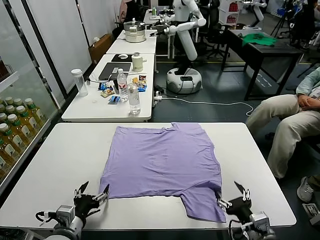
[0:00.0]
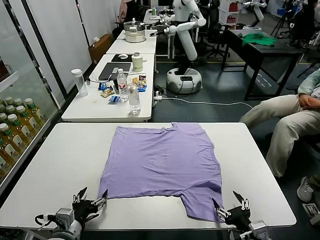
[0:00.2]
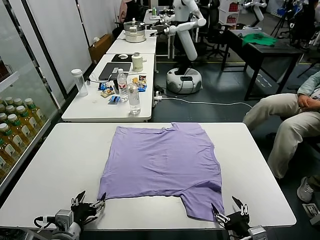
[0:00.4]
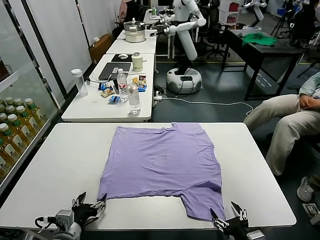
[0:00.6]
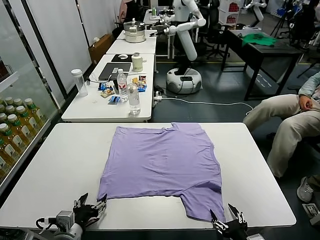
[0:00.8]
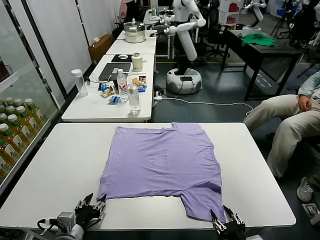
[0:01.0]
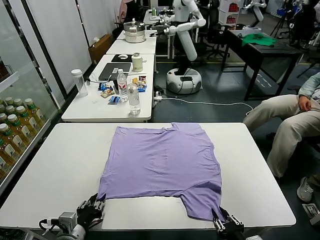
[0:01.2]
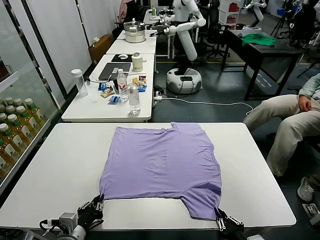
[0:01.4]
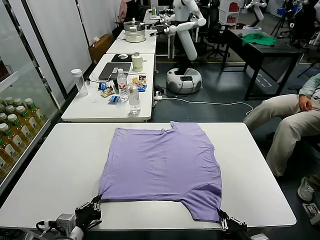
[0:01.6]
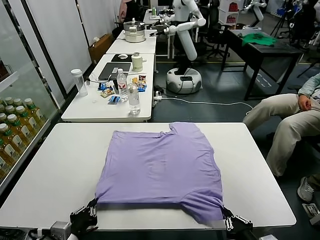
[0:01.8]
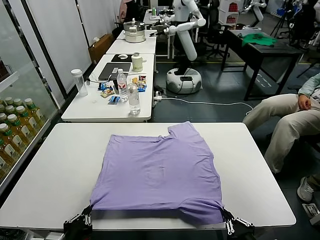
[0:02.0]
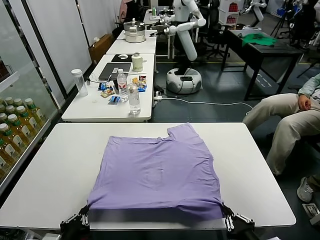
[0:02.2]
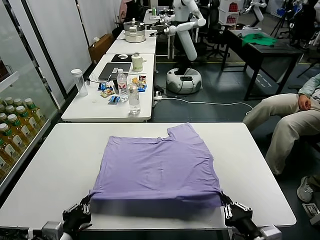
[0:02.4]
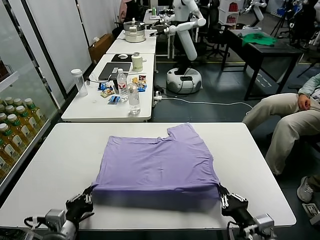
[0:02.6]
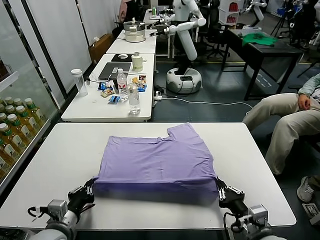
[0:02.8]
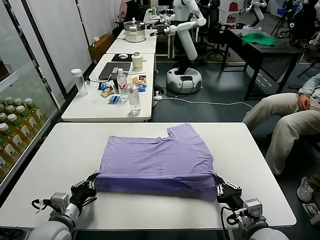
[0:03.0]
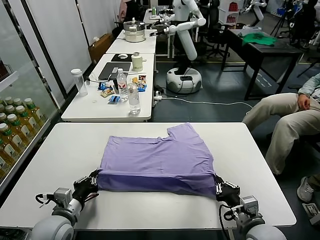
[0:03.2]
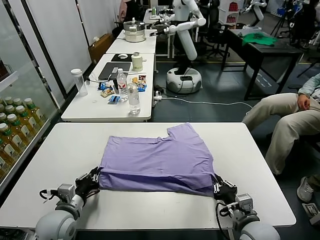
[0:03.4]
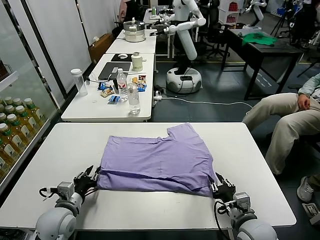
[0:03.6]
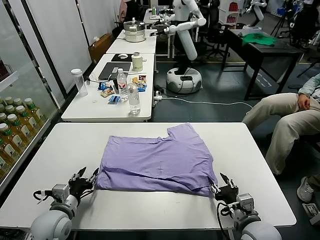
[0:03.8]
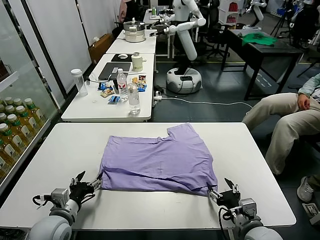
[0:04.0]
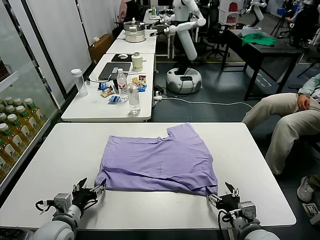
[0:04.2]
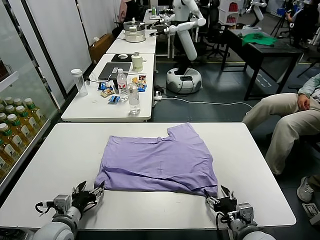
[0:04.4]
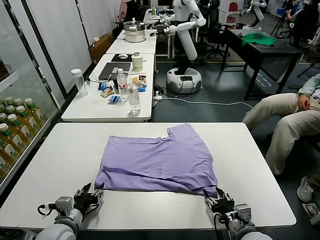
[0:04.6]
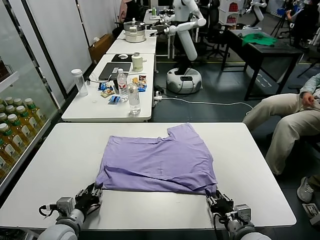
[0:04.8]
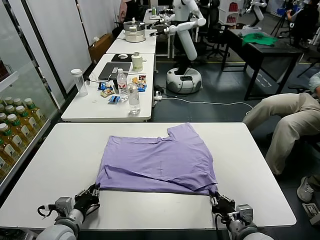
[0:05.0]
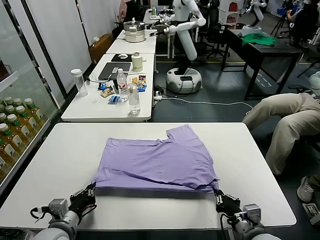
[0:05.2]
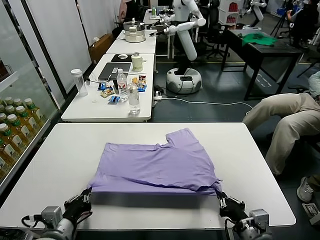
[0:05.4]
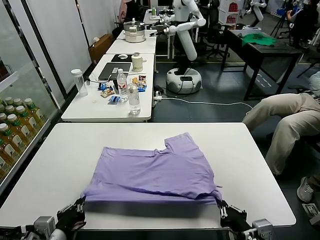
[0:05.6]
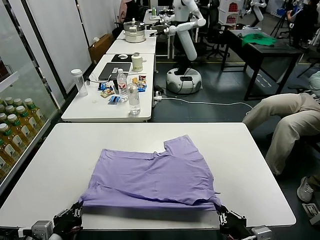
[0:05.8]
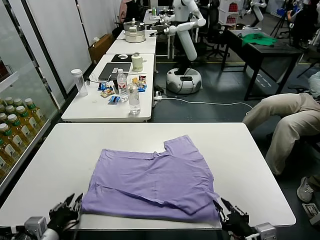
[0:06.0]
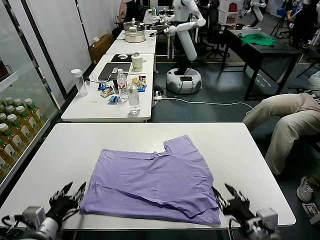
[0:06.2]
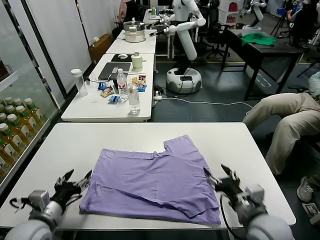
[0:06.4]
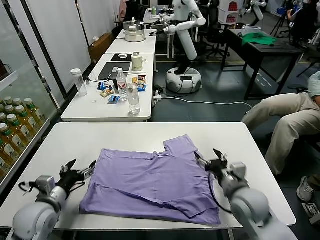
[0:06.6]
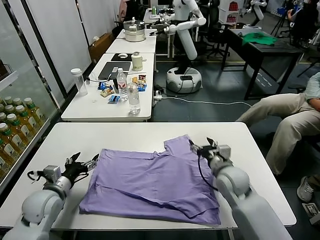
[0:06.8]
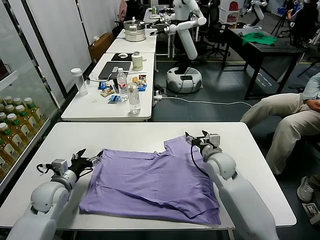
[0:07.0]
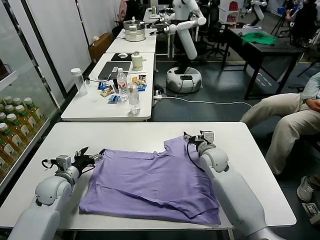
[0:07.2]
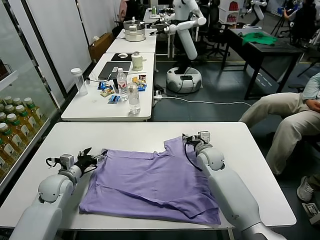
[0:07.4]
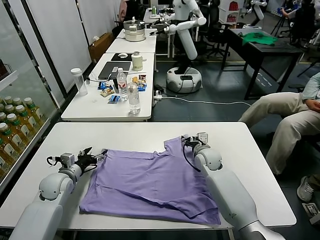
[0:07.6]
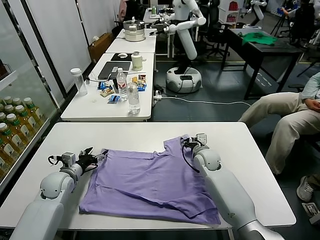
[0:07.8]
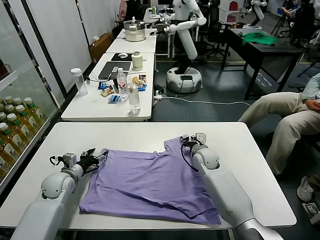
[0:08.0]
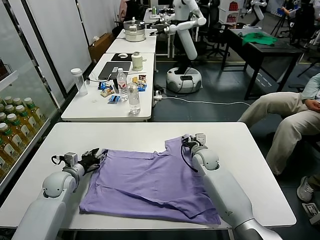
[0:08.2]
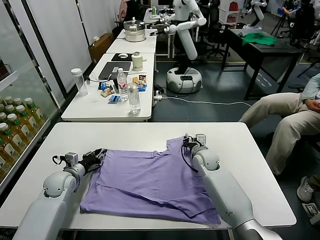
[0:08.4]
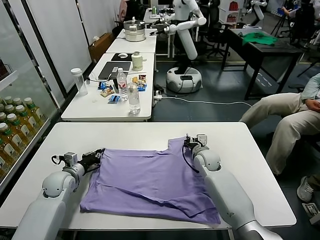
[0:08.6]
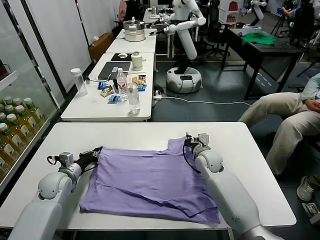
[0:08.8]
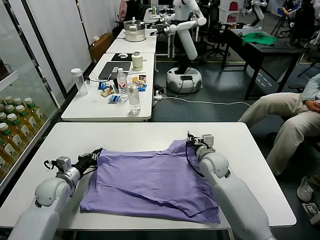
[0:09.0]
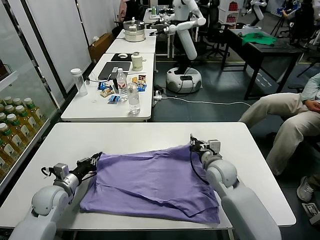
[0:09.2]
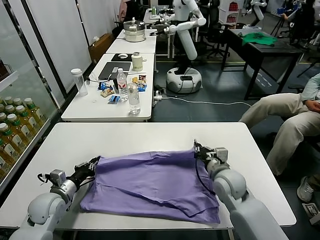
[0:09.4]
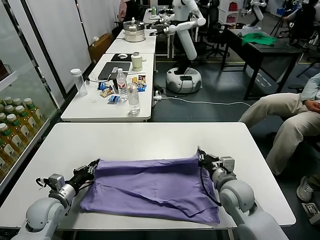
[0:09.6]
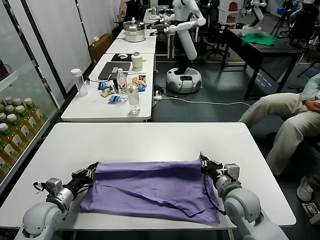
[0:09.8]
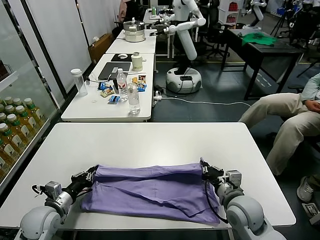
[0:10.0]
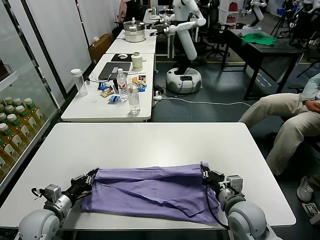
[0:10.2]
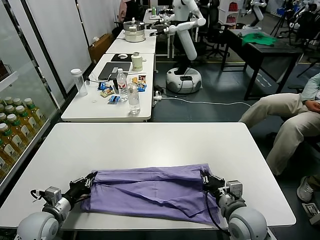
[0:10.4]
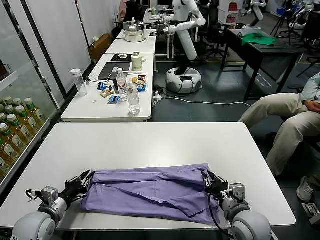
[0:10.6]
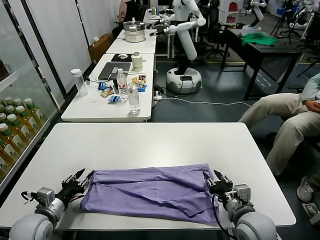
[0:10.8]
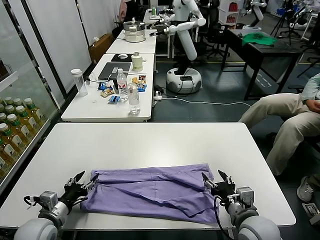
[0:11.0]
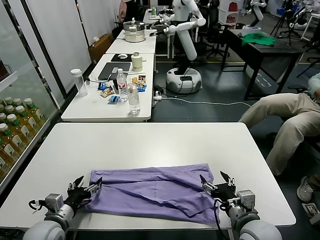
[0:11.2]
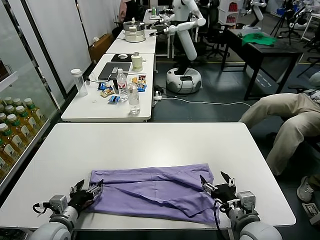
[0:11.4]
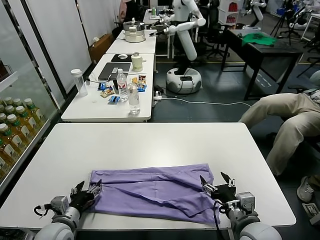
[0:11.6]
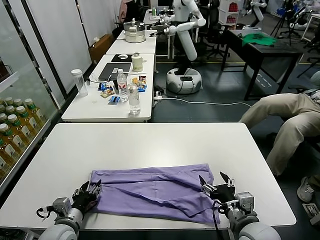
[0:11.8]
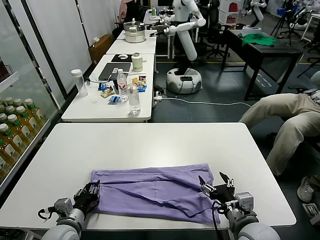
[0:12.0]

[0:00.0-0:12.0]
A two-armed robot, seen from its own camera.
Task of the whole recording: fold and organize the clothes.
Step, 0:00.0 to 0:01.8: use both grippers simultaneously to clamp the lower edge of the clothing fabric.
Step, 0:02.0 to 0:03.6: use both grippers to drag the lower edge of the fabric forward and fold it over the upper edge.
Step, 0:03.8 to 0:06.2: Drag the clothes downward with both gripper.
Step, 0:06.4 to 0:08.6: use both grippers simultaneously to clamp the upper edge of the clothing fabric.
Step, 0:08.8 to 0:10.8: use both grippers to drag the upper edge of the fabric backward and fold it over the lower edge.
0:01.6 to 0:03.0: The right gripper shifts some 10 cm forward. The left gripper shifts approximately 5 cm forward.
0:03.0 to 0:04.4: The left gripper opens up; the right gripper opens.
0:04.4 to 0:06.0: The right gripper travels upward and backward by approximately 10 cm, and closes and opens again; the left gripper moves backward, some 10 cm, and closes.
0:06.0 to 0:07.6: The grippers both shift forward by about 30 cm. The left gripper opens; the right gripper opens its fingers.
0:07.6 to 0:09.0: The left gripper closes, while the right gripper moves backward, approximately 5 cm, and closes up.
0:09.0 to 0:10.4: The left gripper moves backward, approximately 10 cm. The right gripper travels backward by about 20 cm.
0:10.4 to 0:12.0: The left gripper is displaced to the right by about 10 cm, and opens. Meanwhile the right gripper changes place by some 5 cm, and opens up.

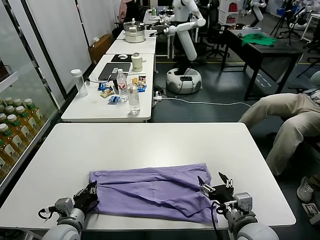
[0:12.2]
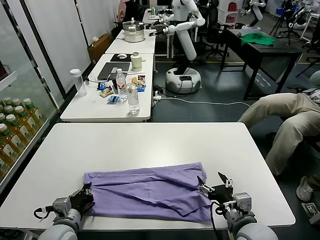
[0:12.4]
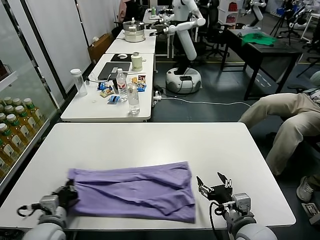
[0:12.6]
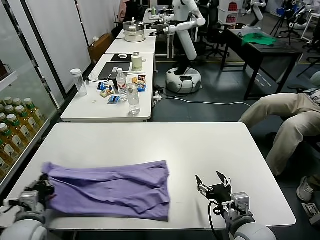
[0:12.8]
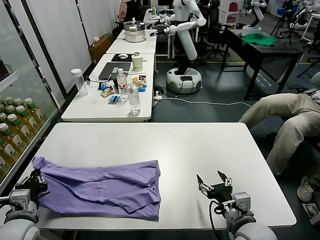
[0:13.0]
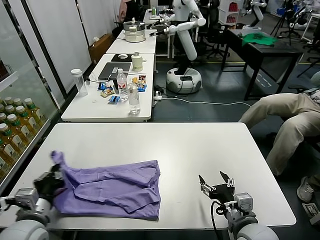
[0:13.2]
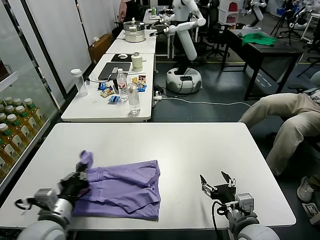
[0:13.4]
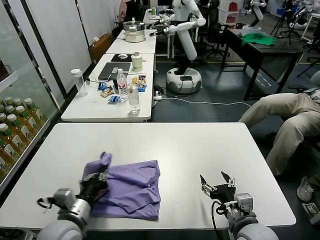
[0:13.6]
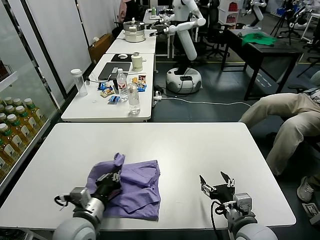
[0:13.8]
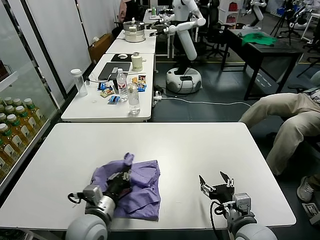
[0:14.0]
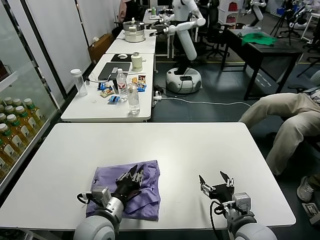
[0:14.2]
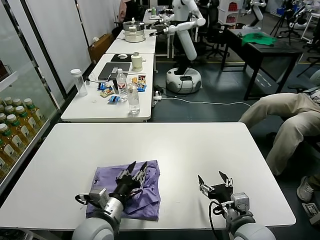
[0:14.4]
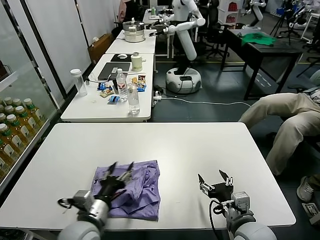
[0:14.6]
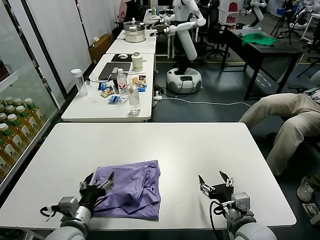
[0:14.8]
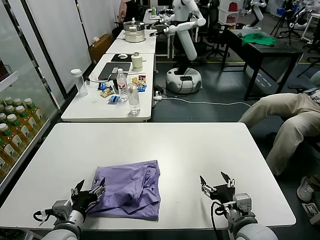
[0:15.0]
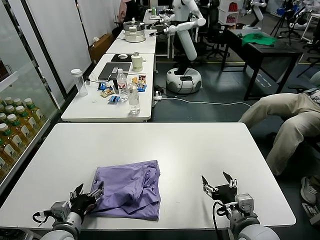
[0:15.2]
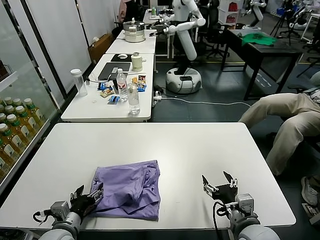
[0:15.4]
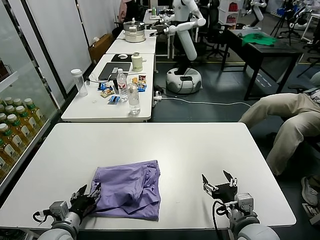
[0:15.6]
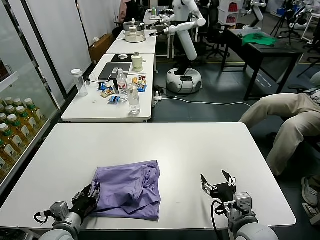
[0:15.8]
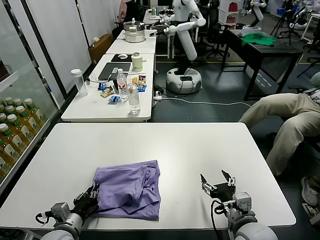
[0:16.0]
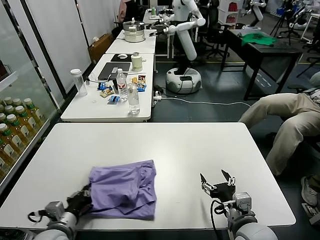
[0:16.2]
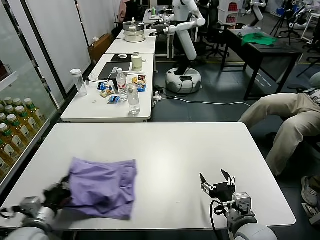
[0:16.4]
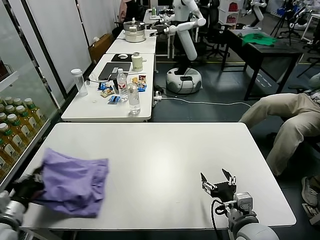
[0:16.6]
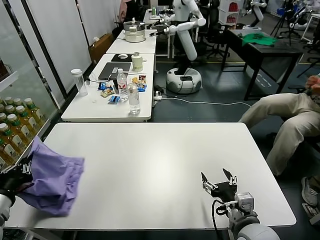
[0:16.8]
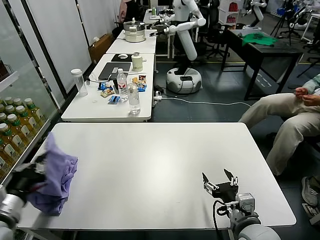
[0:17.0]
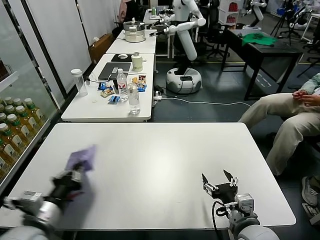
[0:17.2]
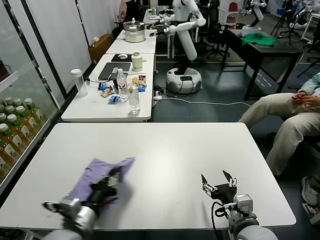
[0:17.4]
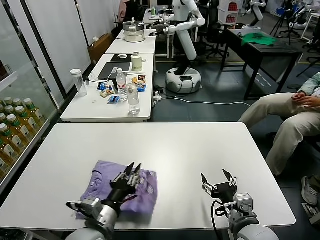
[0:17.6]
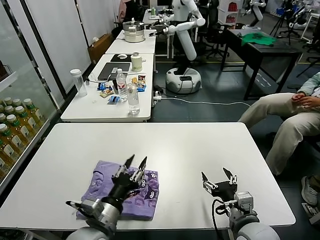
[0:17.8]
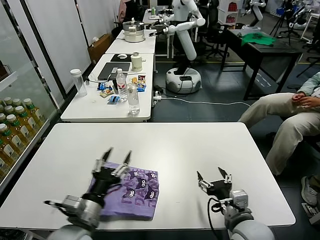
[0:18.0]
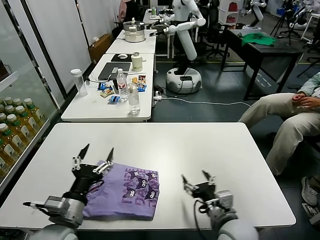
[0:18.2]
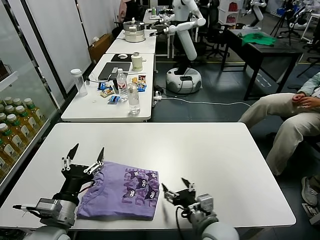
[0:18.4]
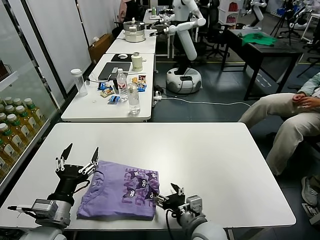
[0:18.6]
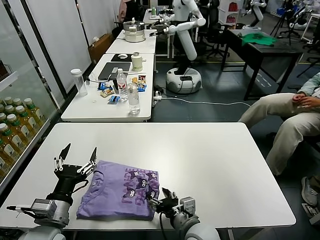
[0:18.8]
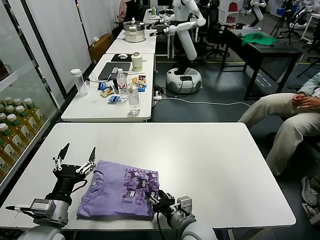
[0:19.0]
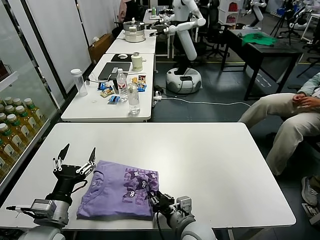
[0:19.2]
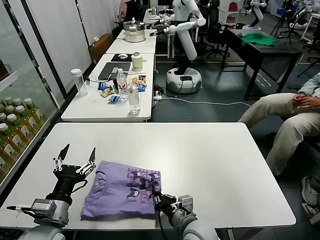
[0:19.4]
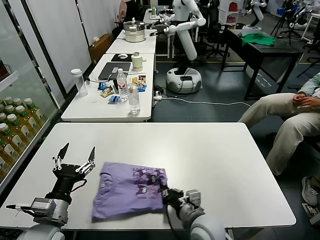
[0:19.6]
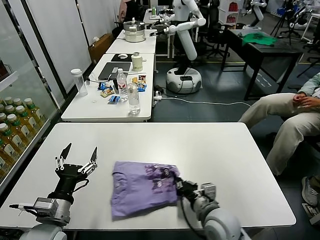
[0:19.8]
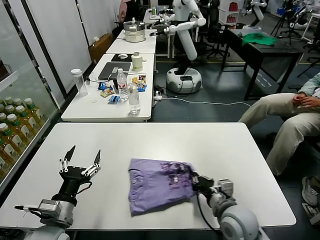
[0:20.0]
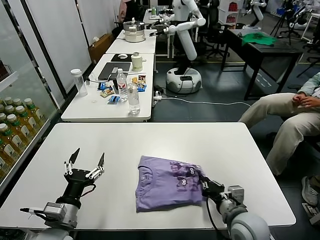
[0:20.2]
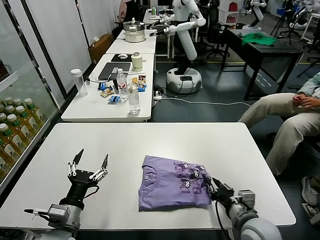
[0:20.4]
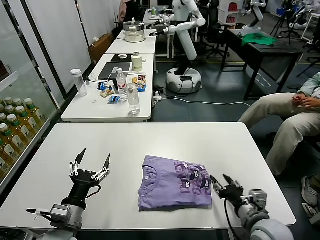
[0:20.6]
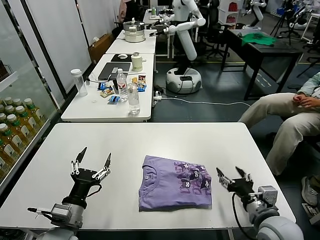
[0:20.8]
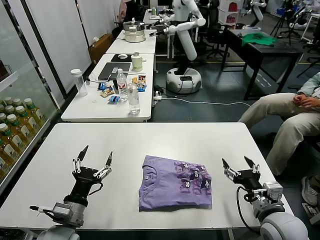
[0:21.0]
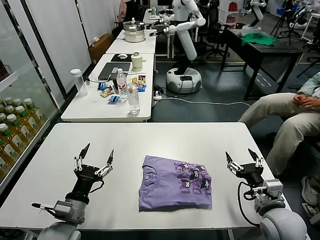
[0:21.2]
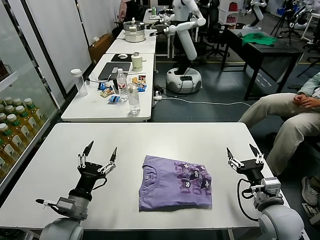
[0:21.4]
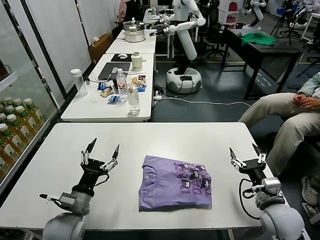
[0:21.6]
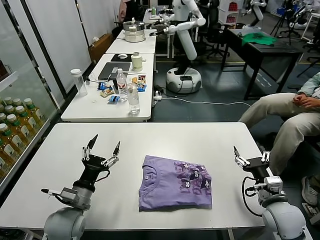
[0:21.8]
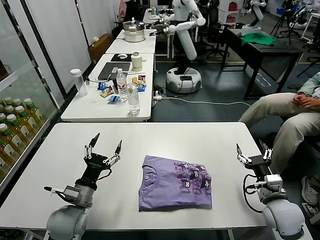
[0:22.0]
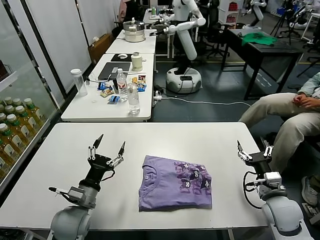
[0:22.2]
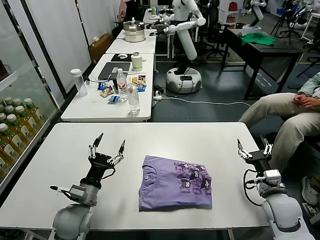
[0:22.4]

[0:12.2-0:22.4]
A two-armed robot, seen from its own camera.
Task of the whole recording: fold and organize the clothes.
Step, 0:12.4 to 0:14.4: use the left gripper to drag the left edge of the fabric to the left and folds it over the right edge.
Step, 0:14.6 to 0:17.8: Flip the folded clothes over with left gripper.
Step, 0:18.0 to 0:20.8: Drag the clothes to the center of the table.
0:12.2 to 0:13.6: The left gripper shifts roughly 10 cm upward, and goes to the left and returns, about 10 cm each way.
0:13.6 to 0:15.2: The left gripper goes approximately 5 cm downward, moves about 10 cm to the right and comes back, and opens up.
0:15.2 to 0:16.6: The left gripper travels to the left and upward by roughly 15 cm, and closes its fingers.
0:16.6 to 0:18.0: The left gripper moves to the right, approximately 20 cm, and opens its fingers.
0:18.0 to 0:19.4: The right gripper is displaced to the left and downward by some 15 cm, and closes; the left gripper moves to the left, approximately 10 cm.
0:19.4 to 0:21.0: The right gripper is displaced to the right by some 20 cm, and opens its fingers.
0:21.0 to 0:22.4: The right gripper goes about 10 cm forward and to the right, while the left gripper moves forward, roughly 5 cm.
